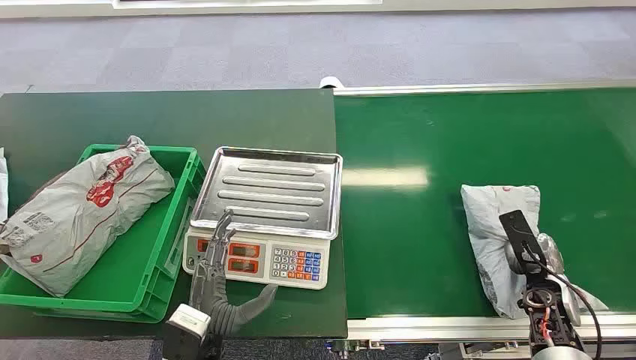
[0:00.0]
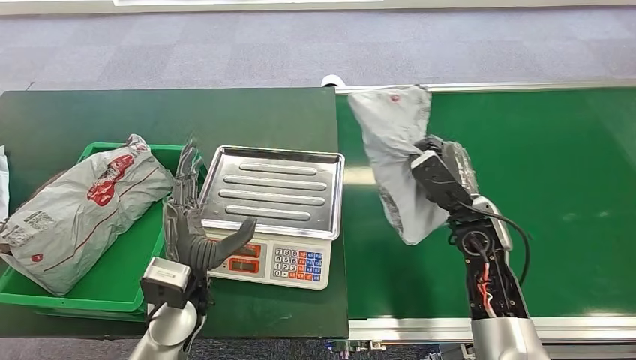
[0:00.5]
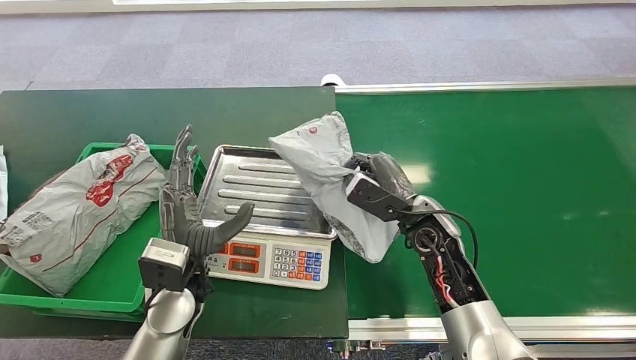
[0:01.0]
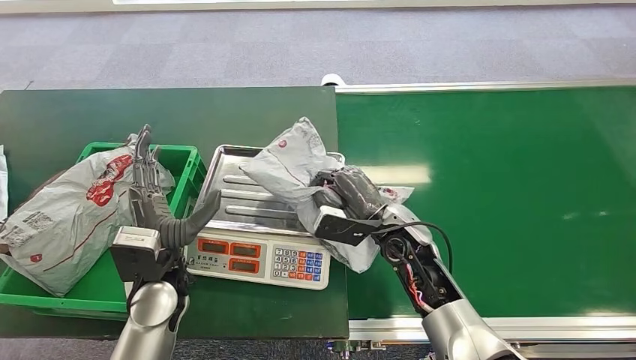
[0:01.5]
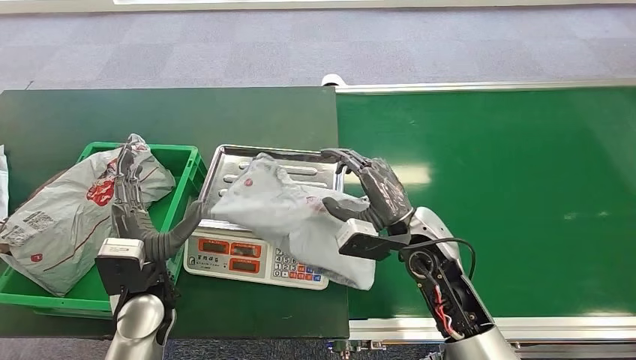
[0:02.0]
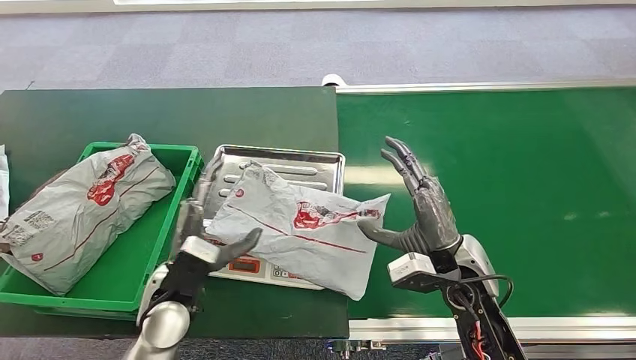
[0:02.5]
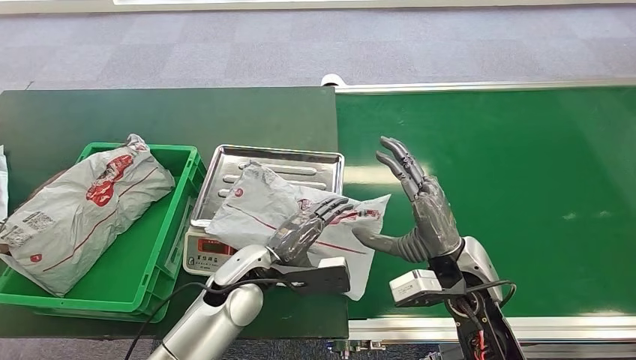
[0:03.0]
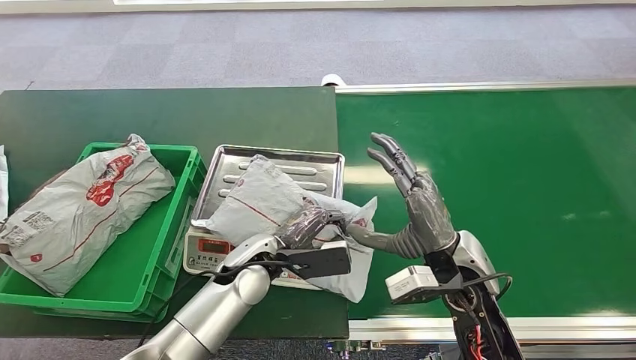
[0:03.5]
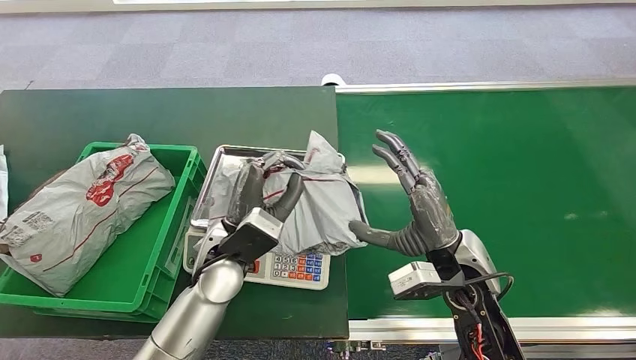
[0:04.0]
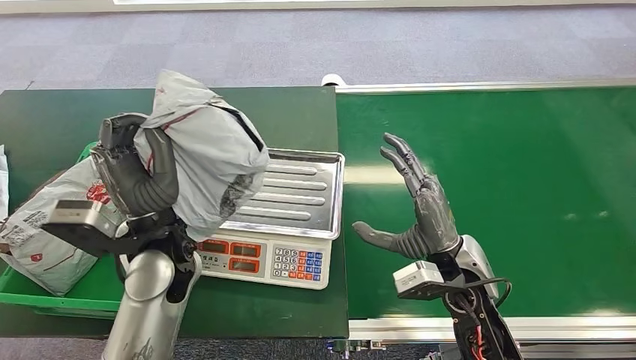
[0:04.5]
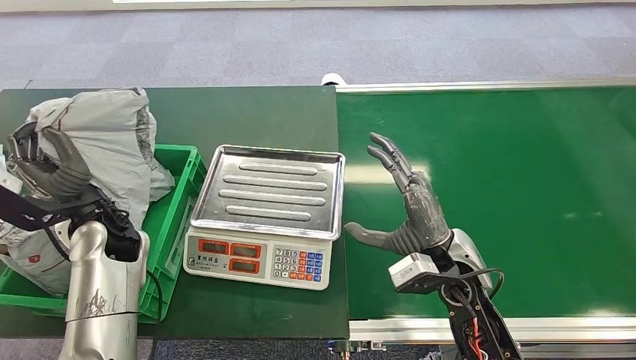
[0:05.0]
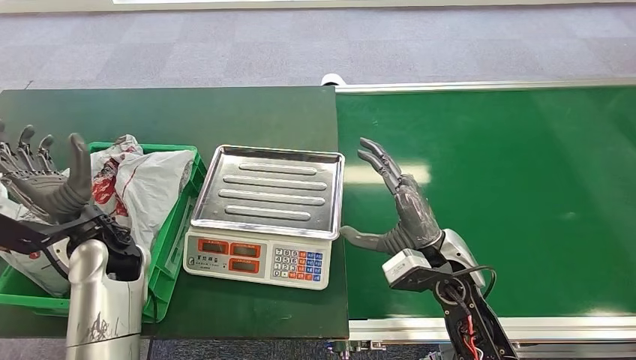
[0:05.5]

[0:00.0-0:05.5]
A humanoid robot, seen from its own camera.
Step, 0:00.0 to 0:00.5: Pick up the package from the conveyor belt.
Step, 0:01.5 to 0:02.0: Place the package onto the inbound machine.
Step, 0:04.0 to 0:04.5: Pick up the package from the inbound machine.
Step, 0:05.0 to 0:05.5: Place the package into the parcel locker.
0:02.0 to 0:03.5: The right hand shifts by approximately 5 cm. The left hand is displaced to the right and forward by some 15 cm.

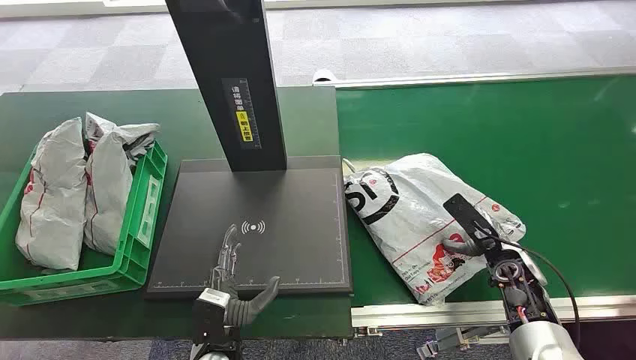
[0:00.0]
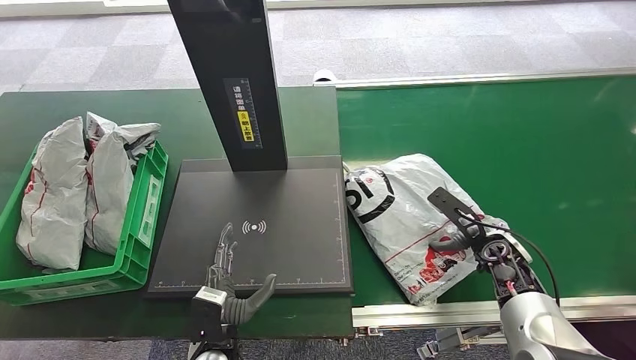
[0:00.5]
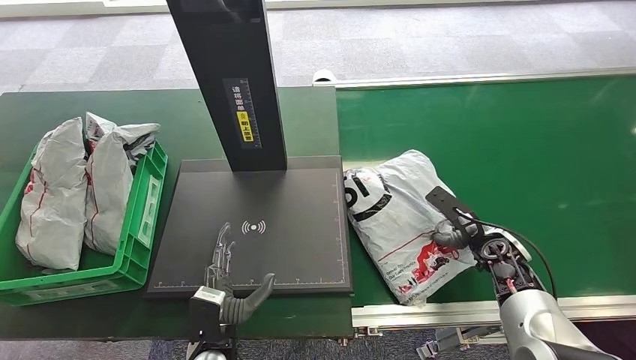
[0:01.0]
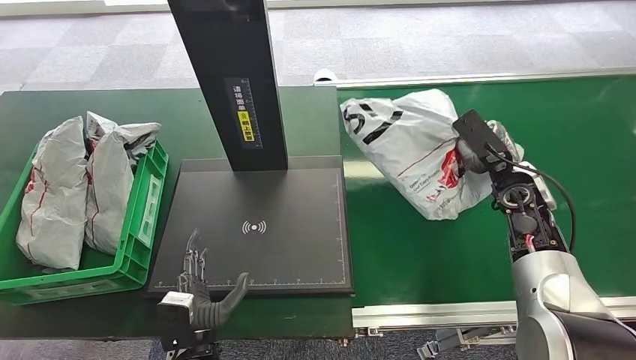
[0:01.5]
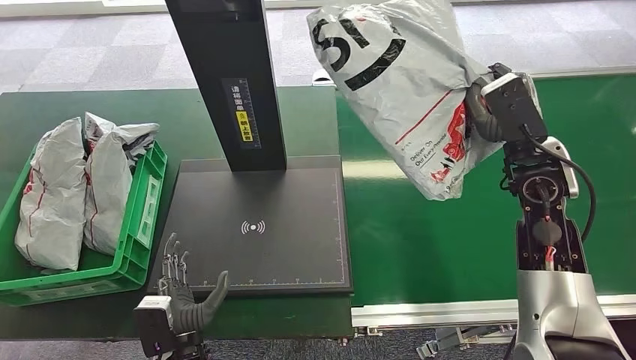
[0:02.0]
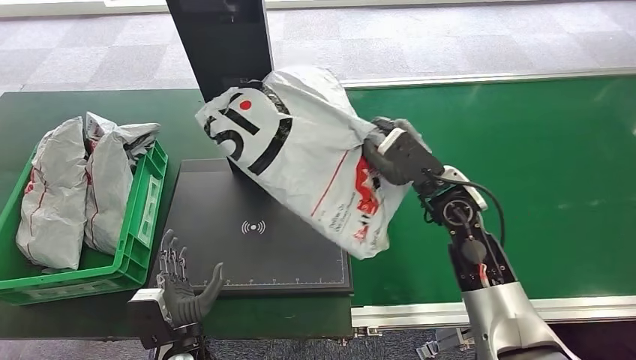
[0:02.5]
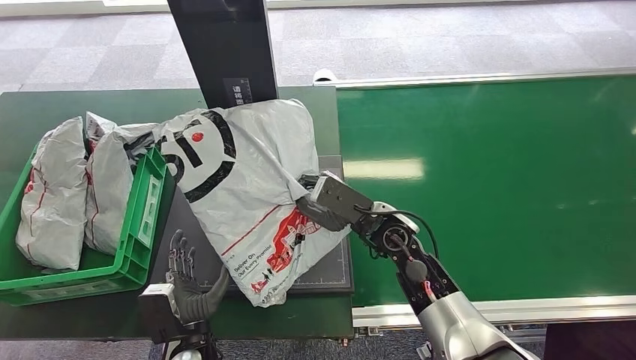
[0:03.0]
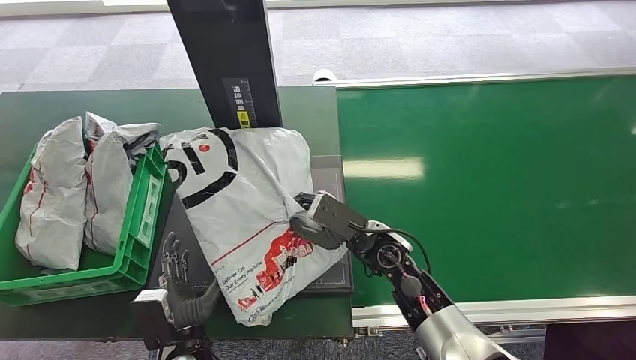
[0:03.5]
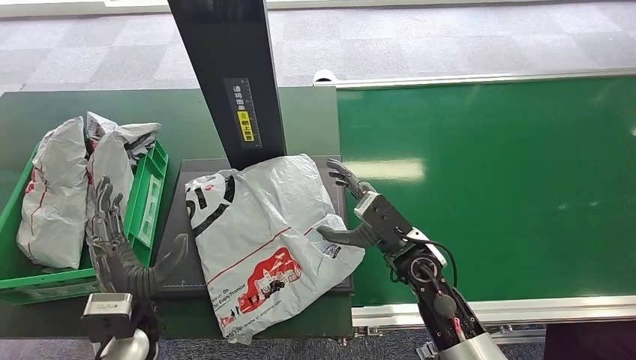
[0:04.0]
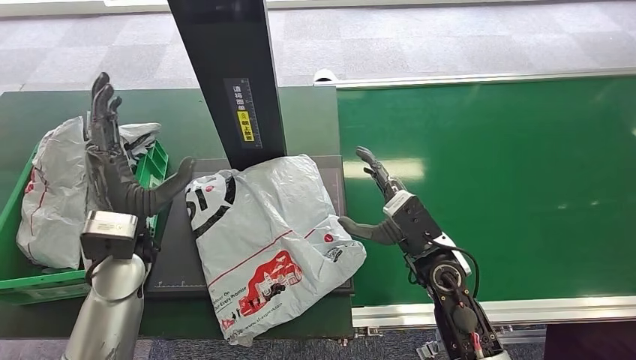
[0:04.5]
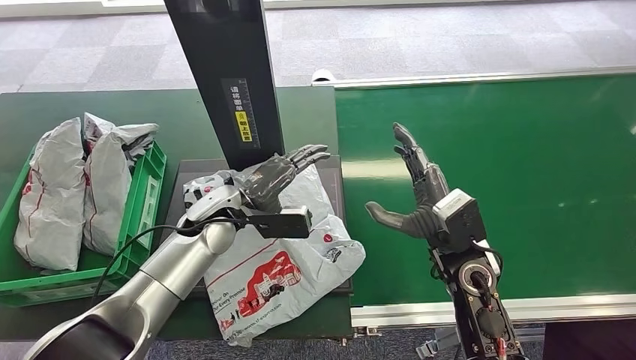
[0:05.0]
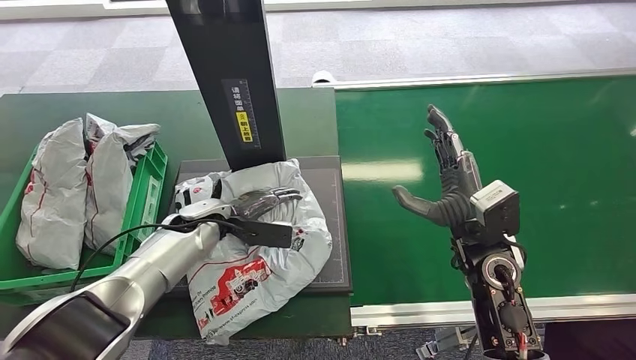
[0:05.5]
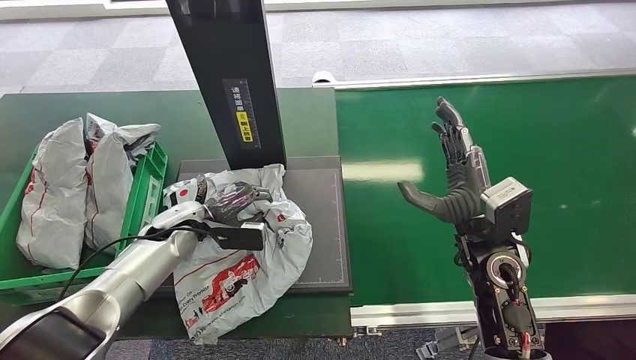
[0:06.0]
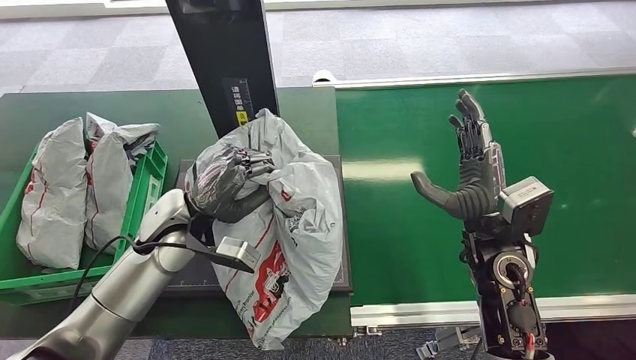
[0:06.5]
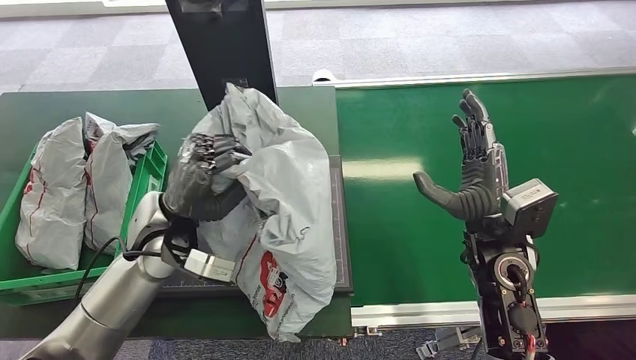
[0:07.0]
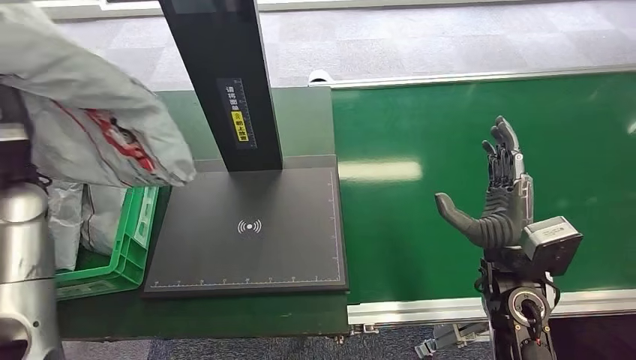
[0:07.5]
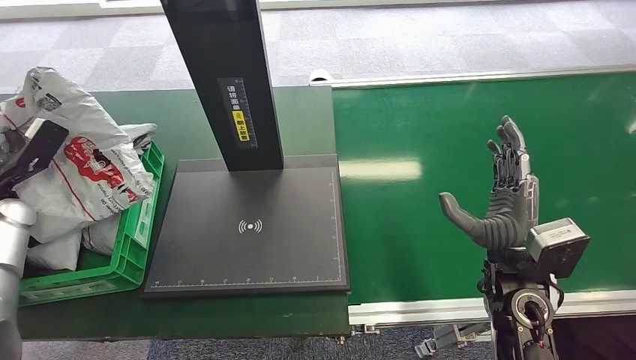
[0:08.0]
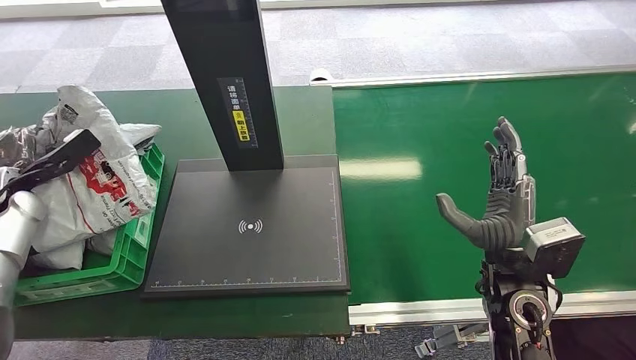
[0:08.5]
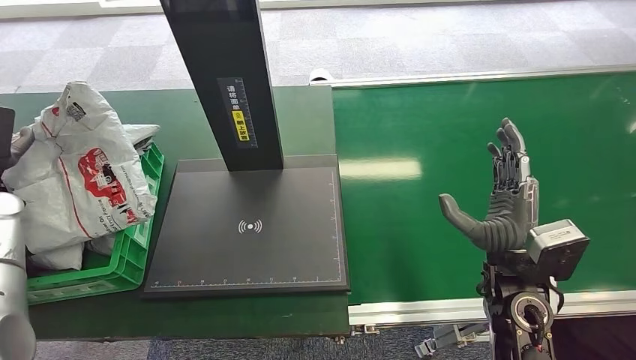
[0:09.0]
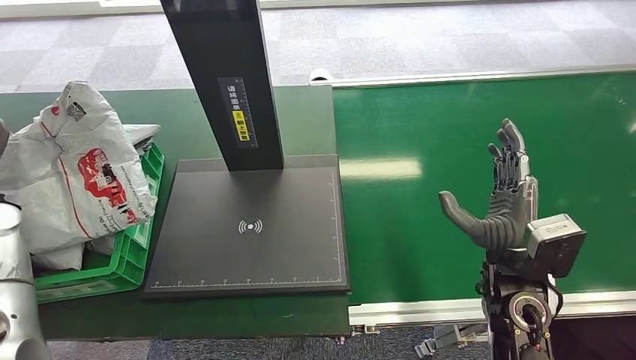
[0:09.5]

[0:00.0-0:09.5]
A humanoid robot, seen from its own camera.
Step, 0:00.0 to 0:02.0: Pick up the package from the conveyor belt.
Step, 0:02.5 to 0:05.0: Place the package onto the inbound machine.
Step, 0:05.5 to 0:07.0: Pick up the package from the inbound machine.
Step, 0:07.5 to 0:09.0: Place the package into the parcel locker.
